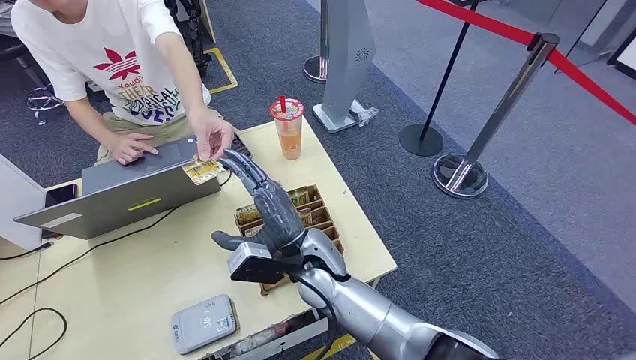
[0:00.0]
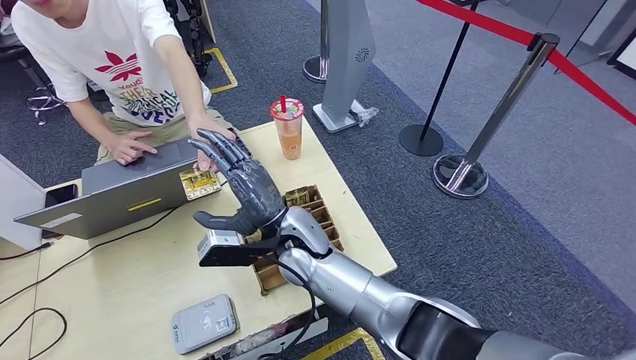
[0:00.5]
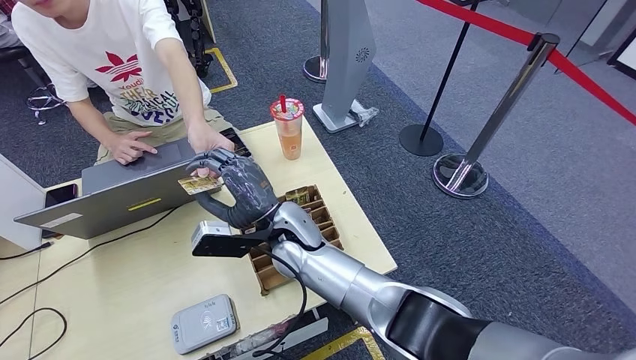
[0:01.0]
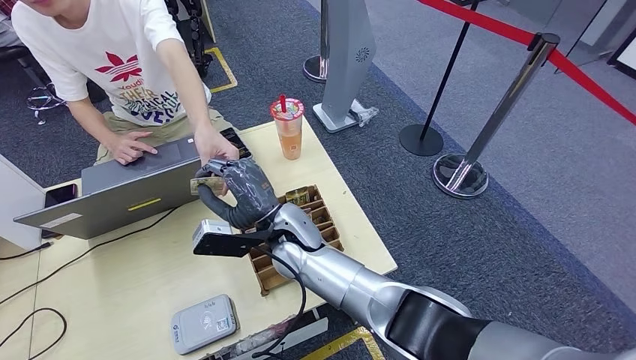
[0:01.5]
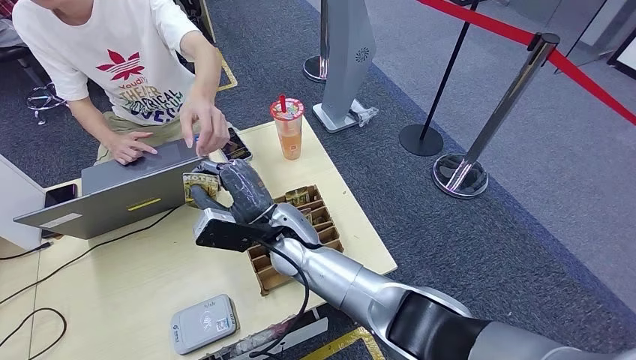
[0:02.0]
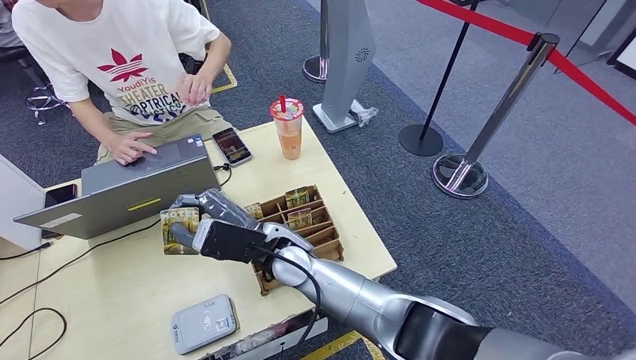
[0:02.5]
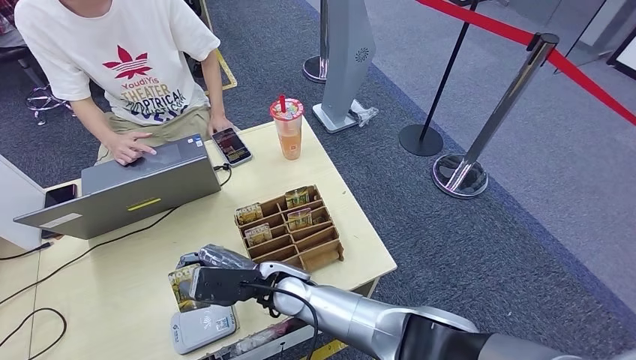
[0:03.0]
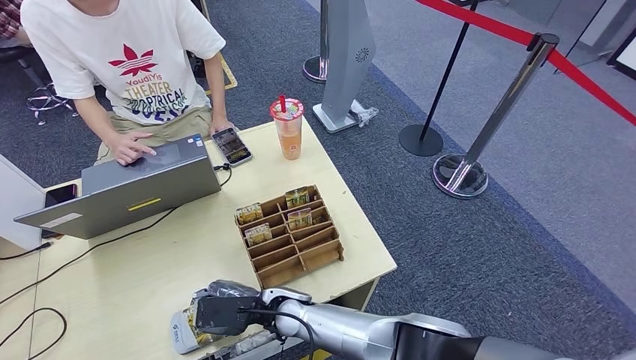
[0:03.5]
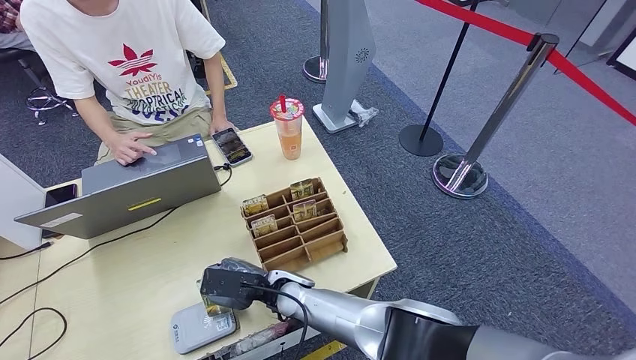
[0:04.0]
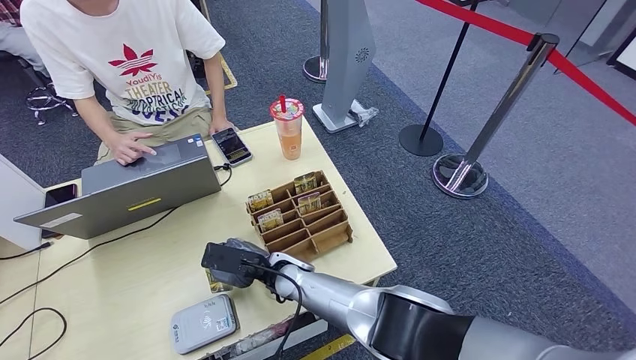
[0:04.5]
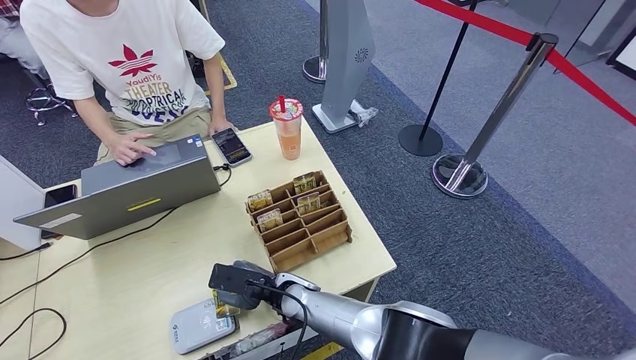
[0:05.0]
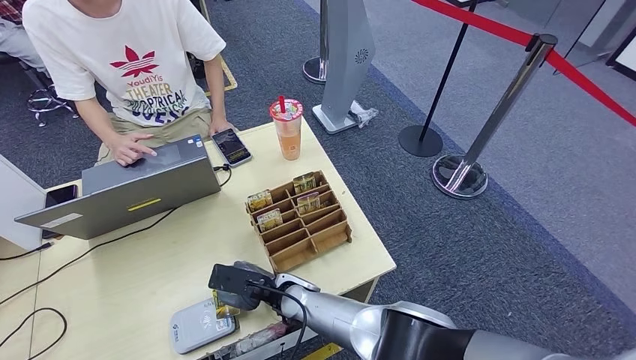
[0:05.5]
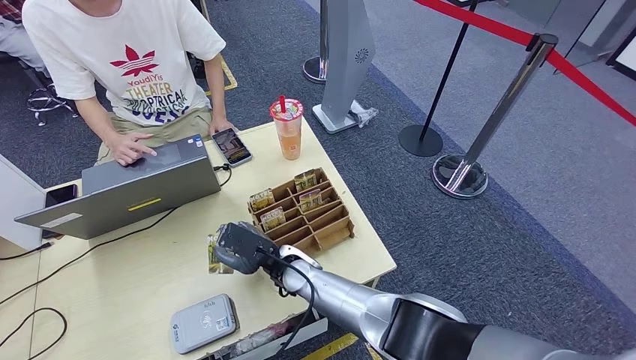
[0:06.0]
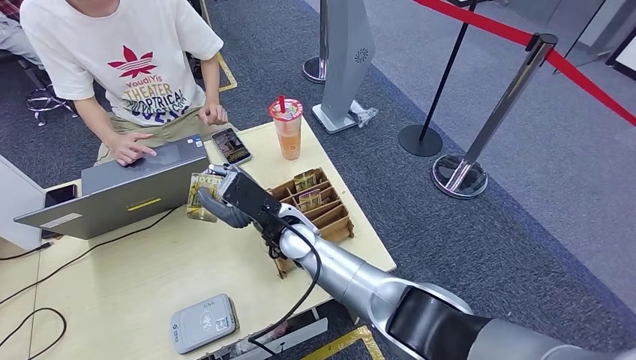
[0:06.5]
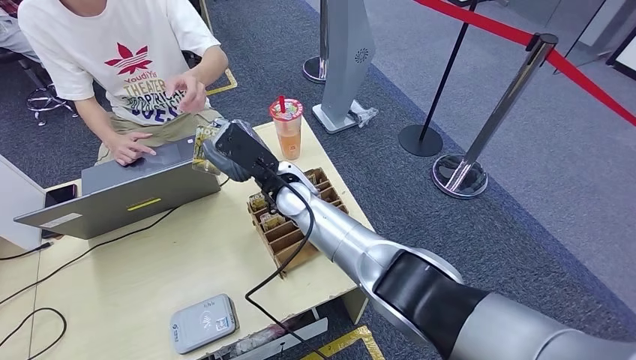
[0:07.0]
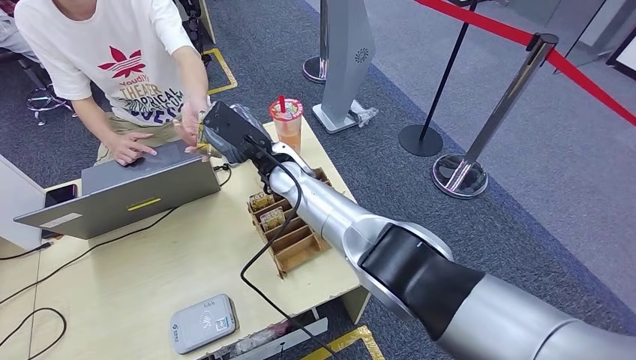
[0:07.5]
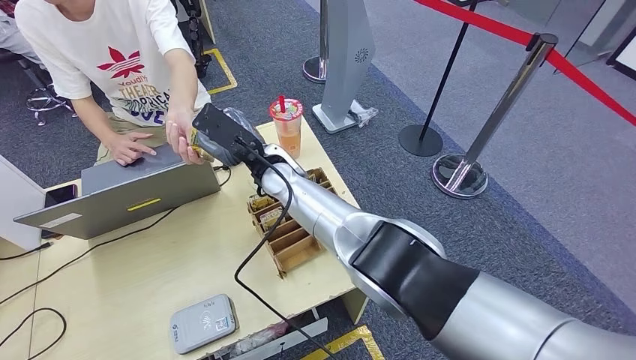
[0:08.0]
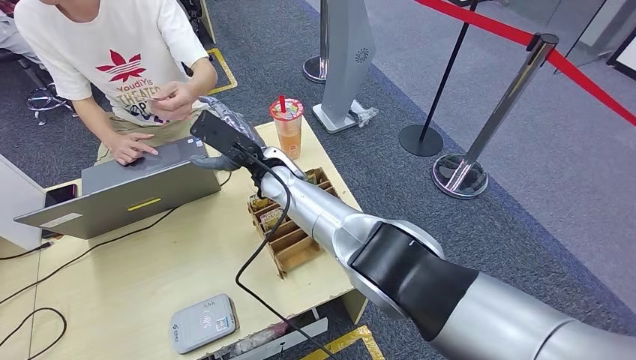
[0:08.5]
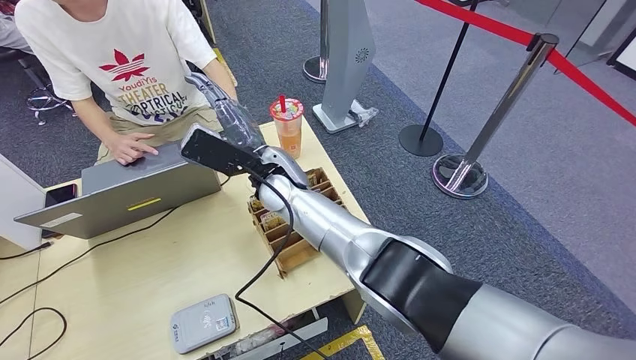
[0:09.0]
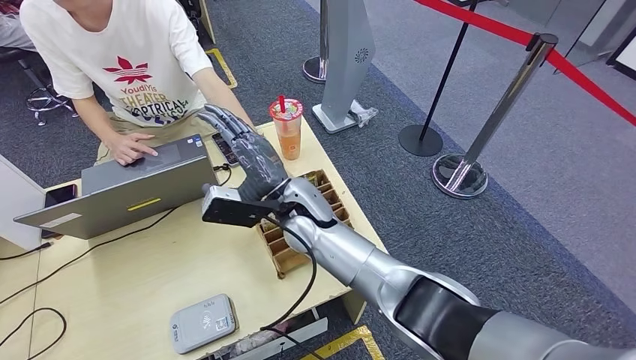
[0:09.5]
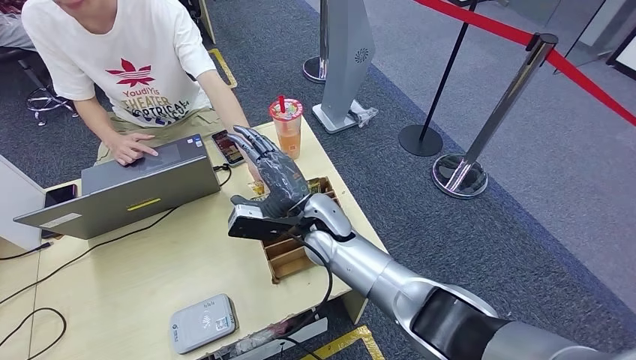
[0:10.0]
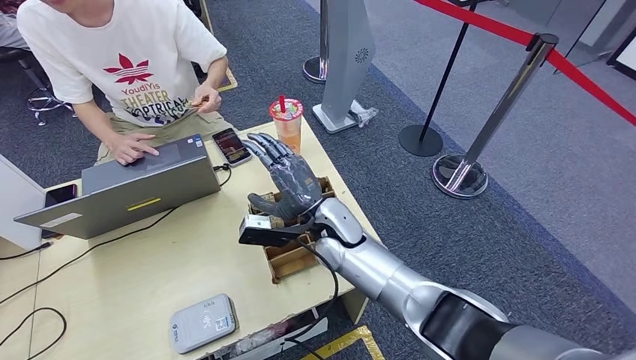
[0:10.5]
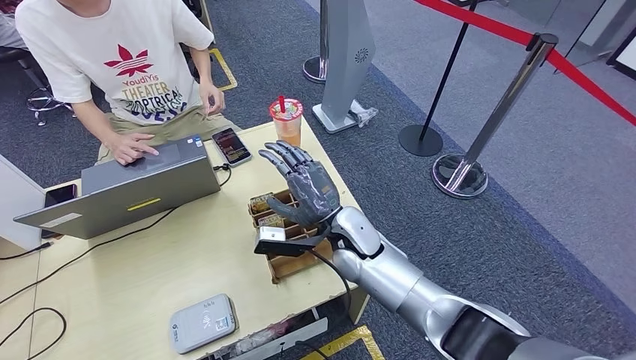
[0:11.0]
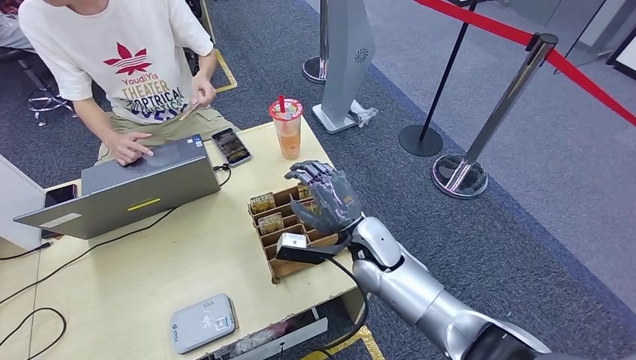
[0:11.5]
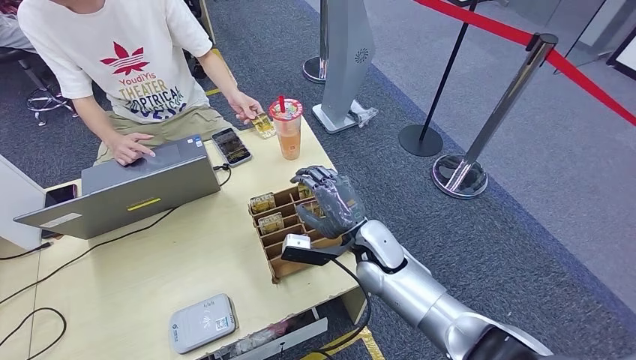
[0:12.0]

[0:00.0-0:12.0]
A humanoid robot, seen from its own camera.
Step, 0:00.0 to 0:02.0: Take the ID card from the person's hand.
Step, 0:02.5 to 0:06.5: Place the ID card on the card reader.
Step, 0:07.0 to 0:08.5: Hand the ID card to the person.
0:02.0 to 0:04.0: The right hand shifts roughly 15 cm downward.
0:04.0 to 0:06.0: There are only small adjustments of the hands.
0:08.0 to 0:10.0: The right hand moves backward and downward, approximately 10 cm.
0:10.0 to 0:12.0: The right hand moves to the right and backward, roughly 10 cm.

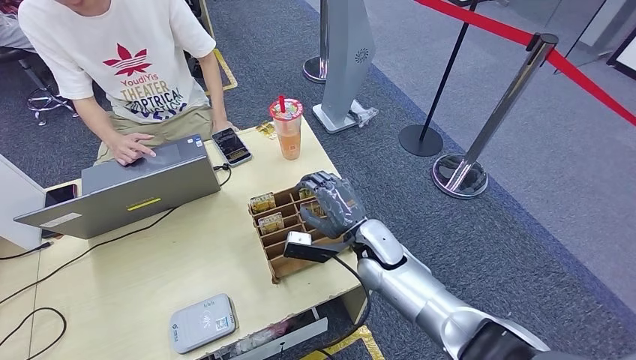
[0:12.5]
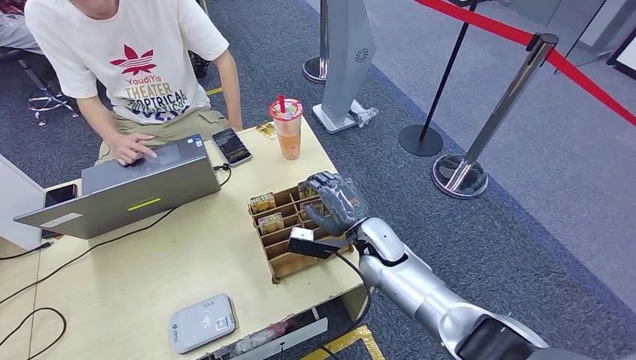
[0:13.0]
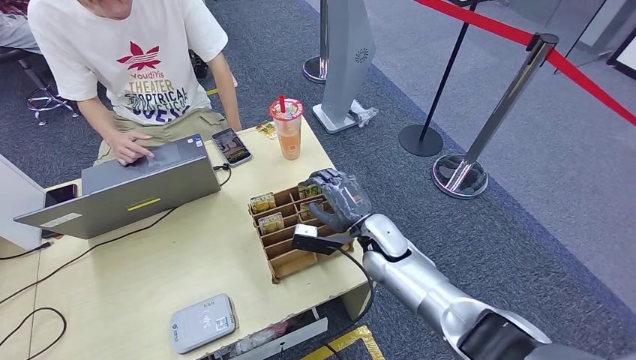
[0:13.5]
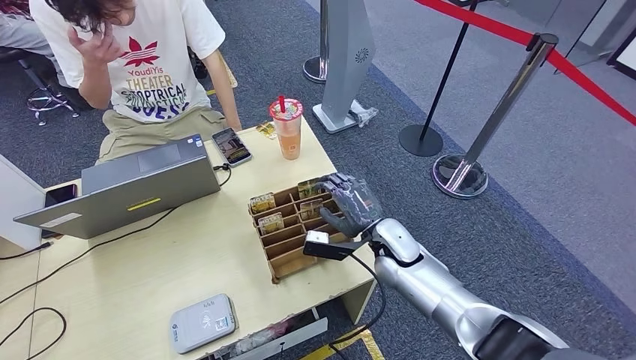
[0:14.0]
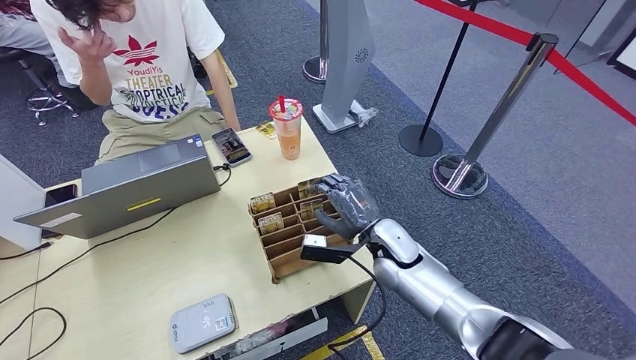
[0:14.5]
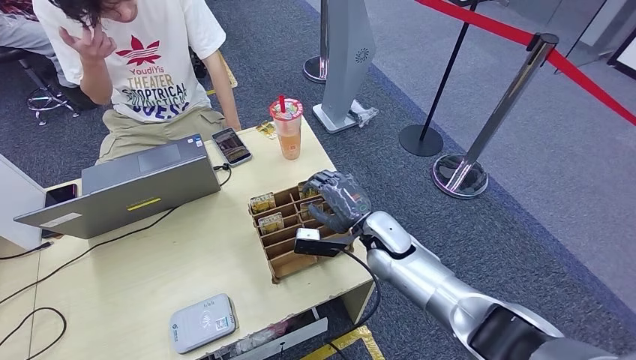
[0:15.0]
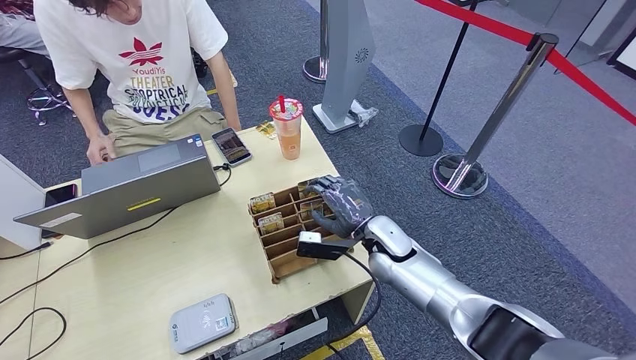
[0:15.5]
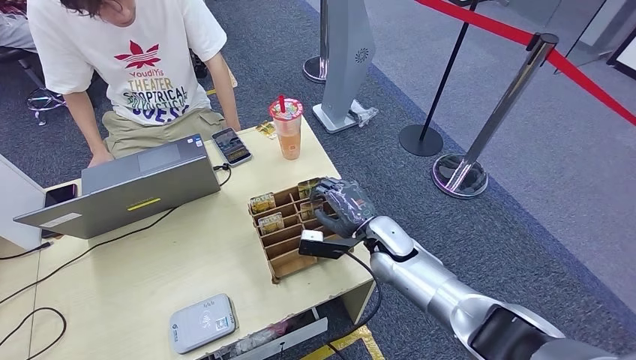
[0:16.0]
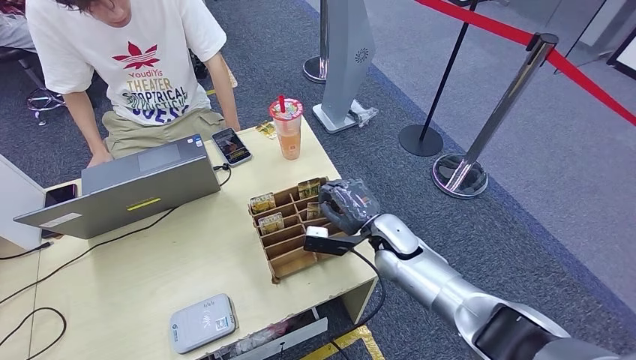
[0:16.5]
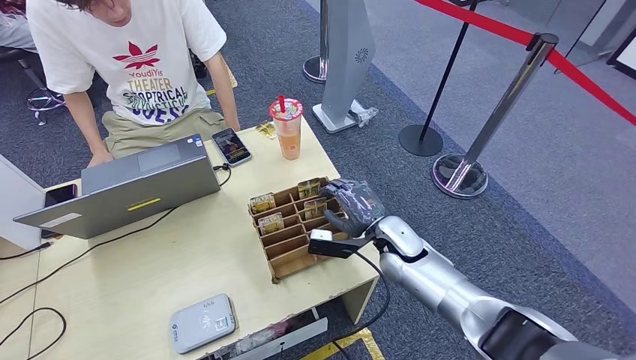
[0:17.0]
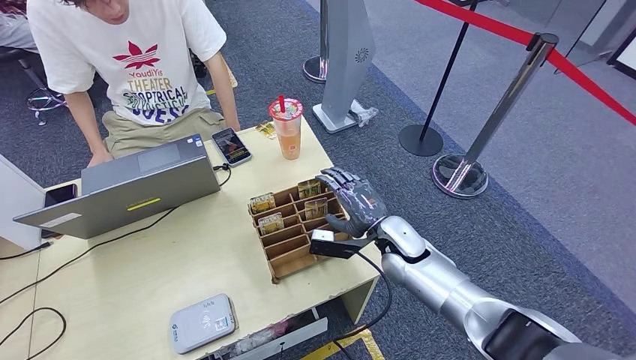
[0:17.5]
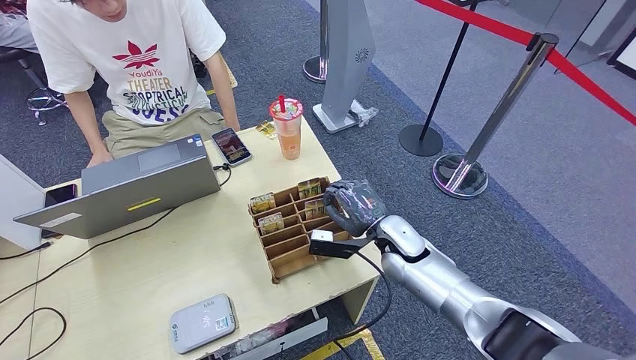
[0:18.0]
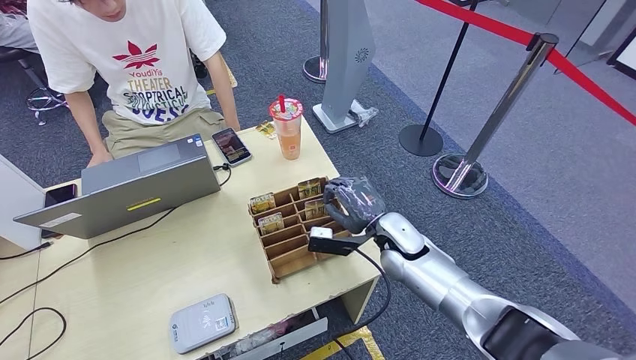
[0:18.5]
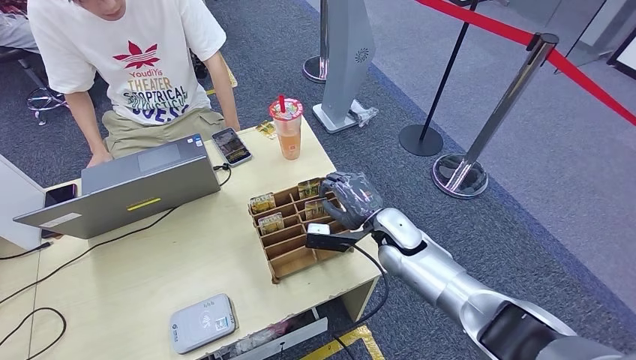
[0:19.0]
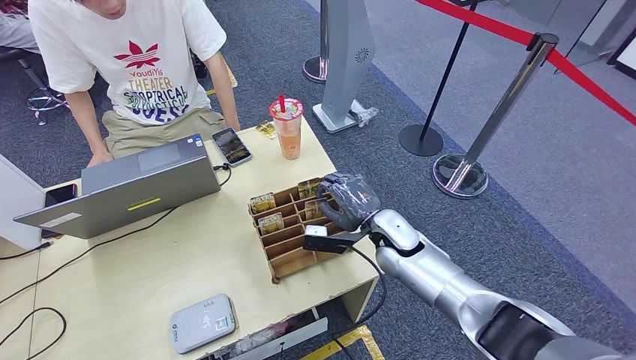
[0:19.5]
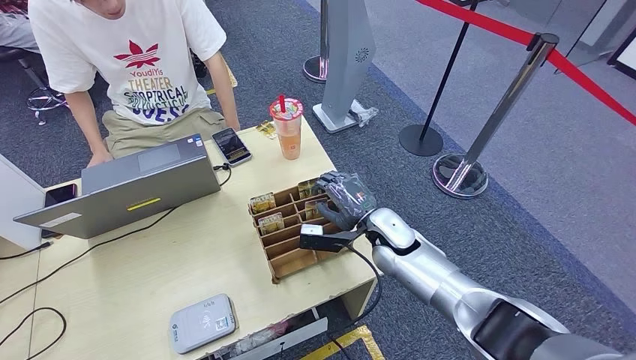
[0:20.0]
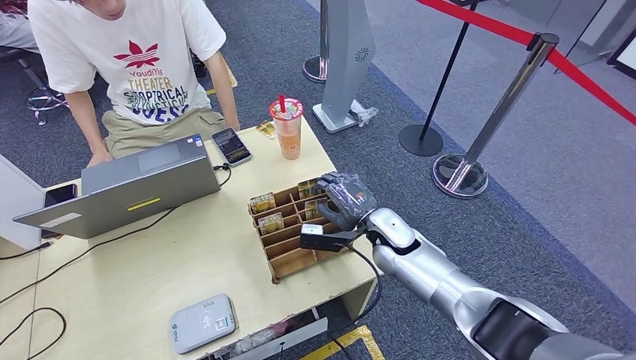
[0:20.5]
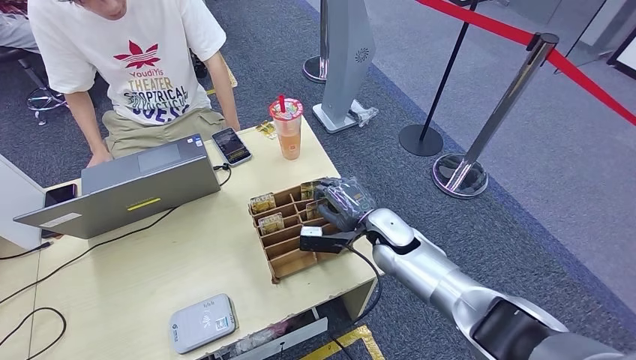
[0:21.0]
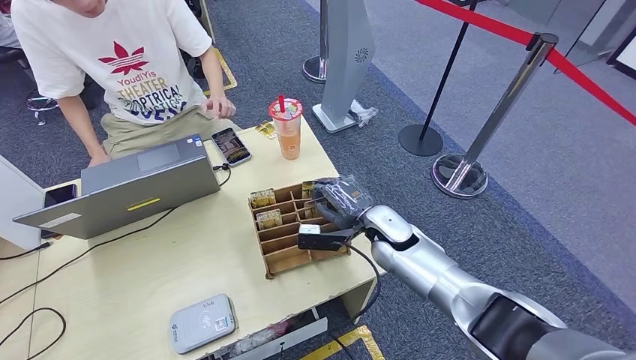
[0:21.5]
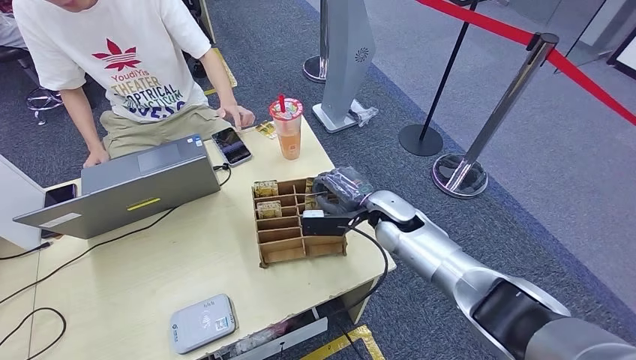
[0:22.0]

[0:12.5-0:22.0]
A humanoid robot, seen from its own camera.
Step, 0:12.5 to 0:22.0: Pick up the room key from the key card box.
0:12.5 to 0:16.5: The hands make only small movements.
0:16.5 to 0:18.0: Neither hand changes place.
0:18.0 to 0:22.0: The hands make only small movements.
